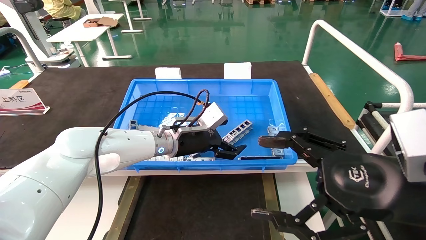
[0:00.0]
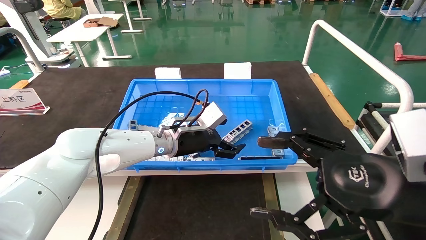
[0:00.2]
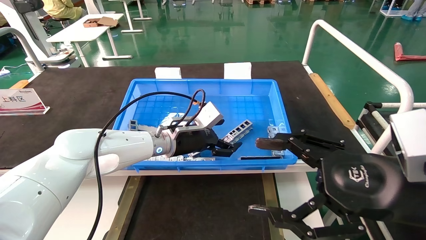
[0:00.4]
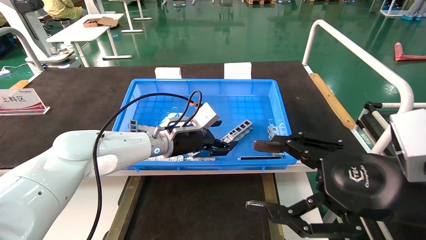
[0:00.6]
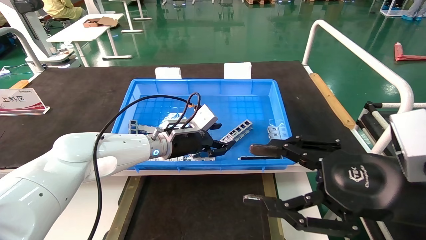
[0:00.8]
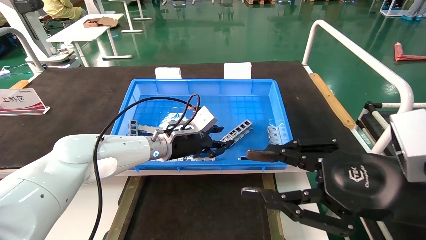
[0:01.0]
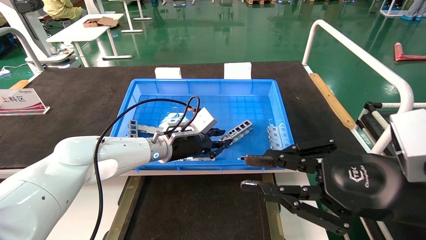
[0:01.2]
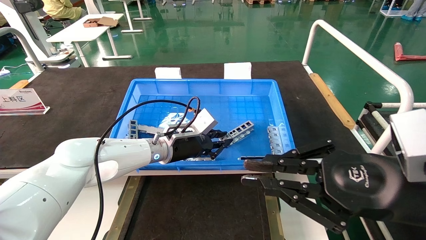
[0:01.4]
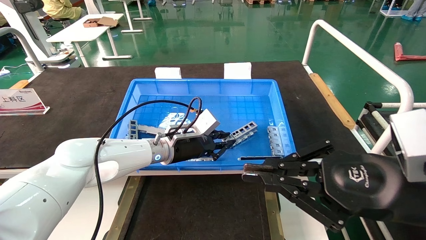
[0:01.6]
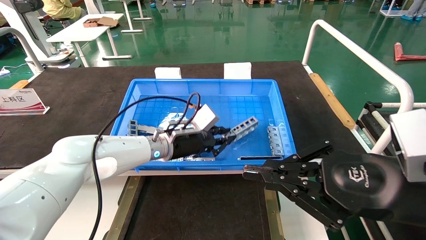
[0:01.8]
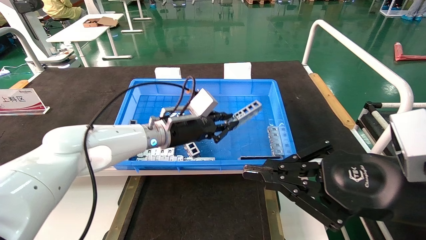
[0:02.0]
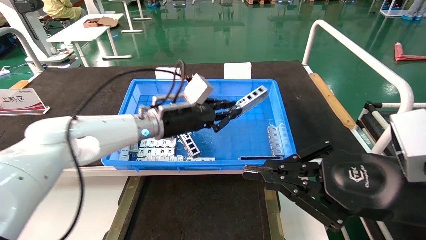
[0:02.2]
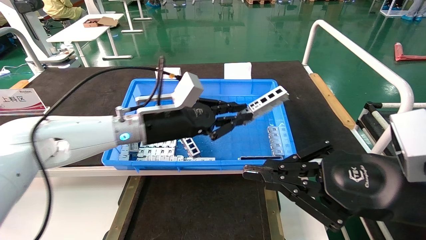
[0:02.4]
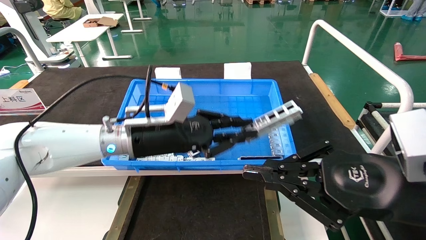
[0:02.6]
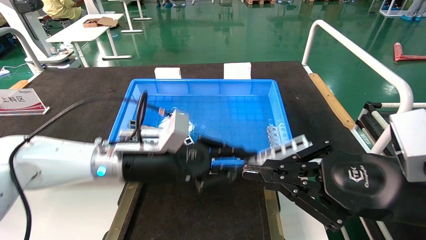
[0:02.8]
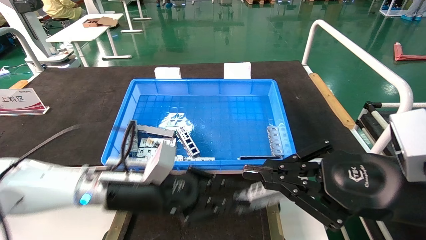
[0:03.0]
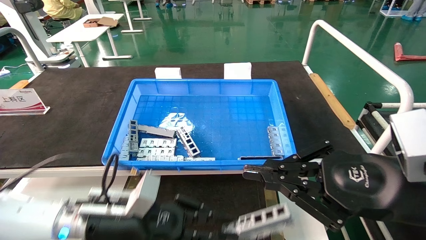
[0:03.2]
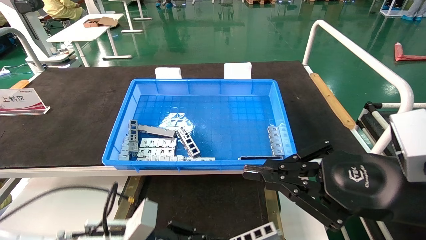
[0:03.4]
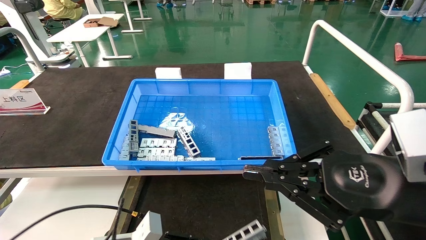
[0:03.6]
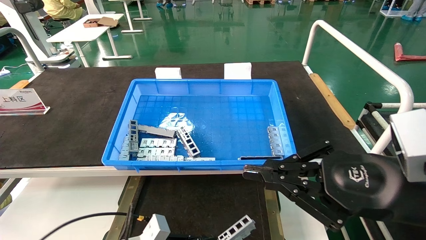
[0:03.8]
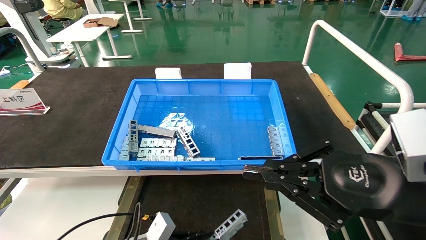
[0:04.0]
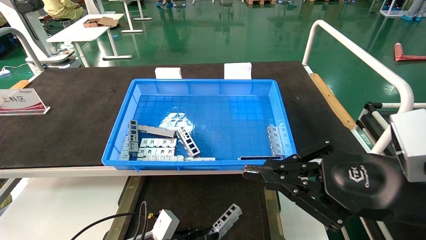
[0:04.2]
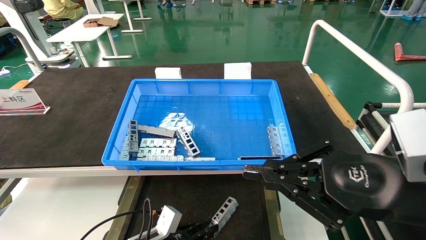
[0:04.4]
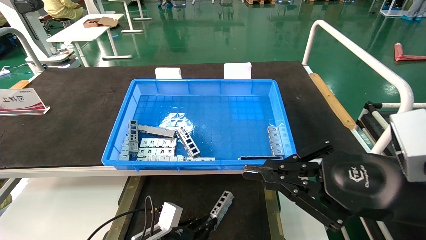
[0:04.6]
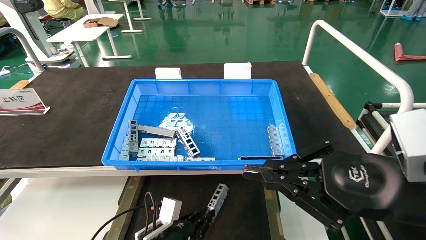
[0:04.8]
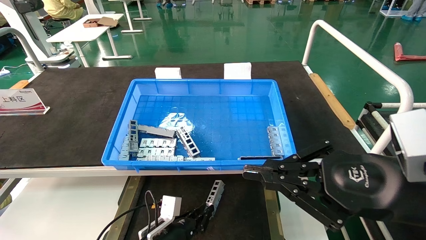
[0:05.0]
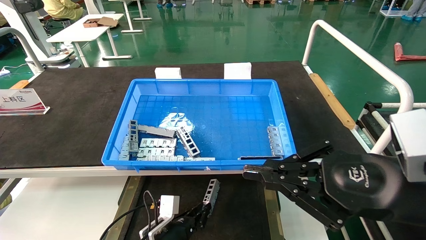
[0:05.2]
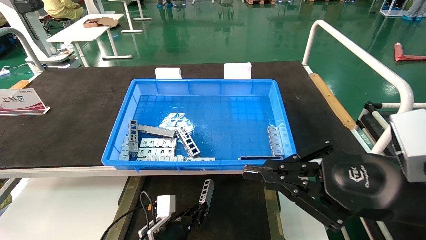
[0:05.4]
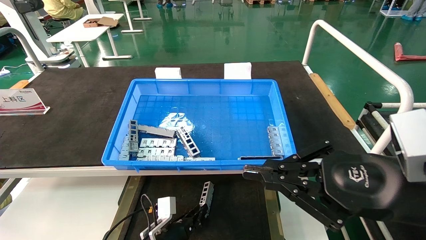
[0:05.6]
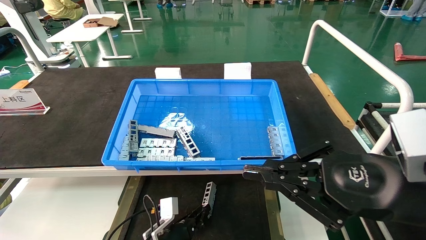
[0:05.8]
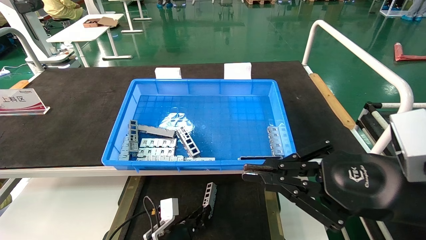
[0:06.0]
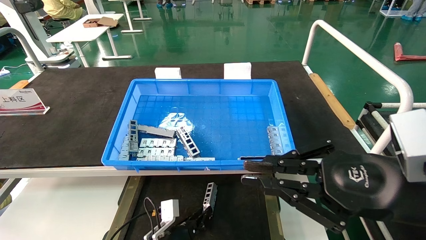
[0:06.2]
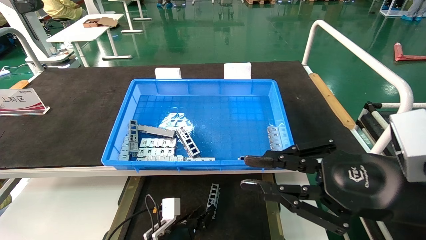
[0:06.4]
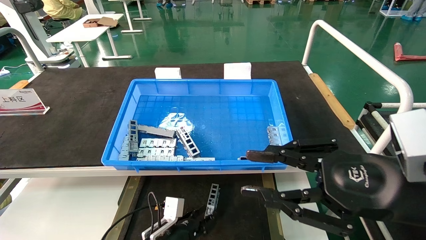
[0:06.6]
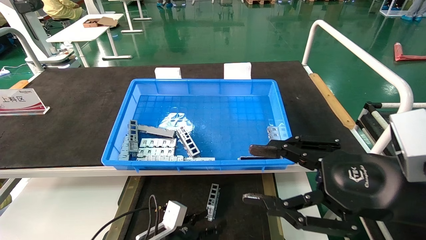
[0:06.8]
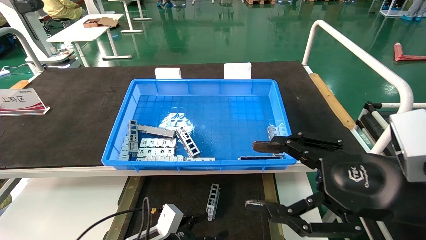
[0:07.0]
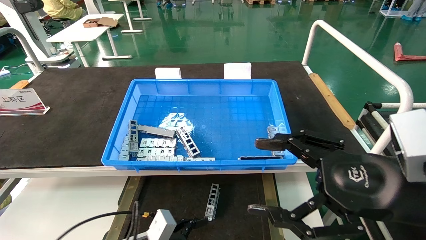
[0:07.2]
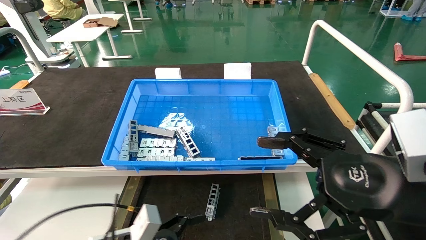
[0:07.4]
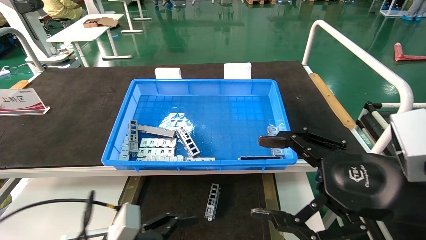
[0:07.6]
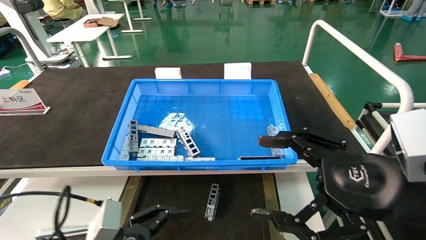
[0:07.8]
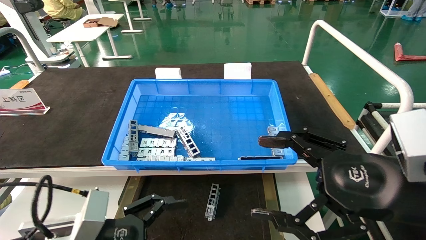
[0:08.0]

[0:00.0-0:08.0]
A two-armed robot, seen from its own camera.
Task of the whole recording: Grasp the part with one hand and place it on the black container.
Step, 0:00.0 to 0:02.0: Pick up the front USB bracket from the feeding area.
Step, 0:02.2 to 0:06.4: Place the front USB bracket into the box.
0:00.0 to 0:01.6: The right gripper closes up. Meanwhile the left gripper closes its fingers.
0:01.6 to 0:03.2: The left gripper travels backward and to the left by some 20 cm.
0:03.2 to 0:04.8: The left gripper goes approximately 15 cm downward.
0:04.8 to 0:06.4: The grippers move only a little.
0:06.4 to 0:08.0: The left gripper moves upward, backward and to the left, some 25 cm, and opens, while the right gripper opens its fingers.

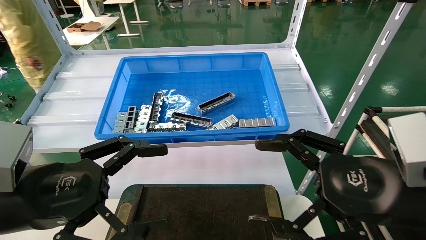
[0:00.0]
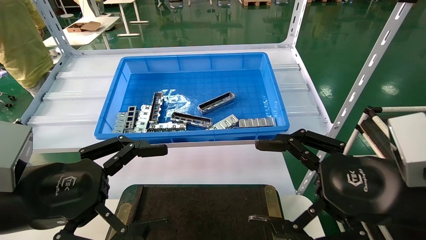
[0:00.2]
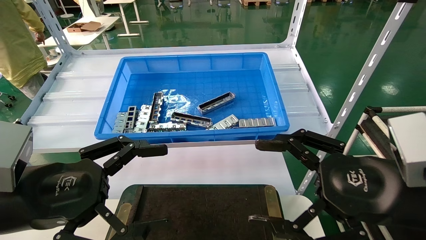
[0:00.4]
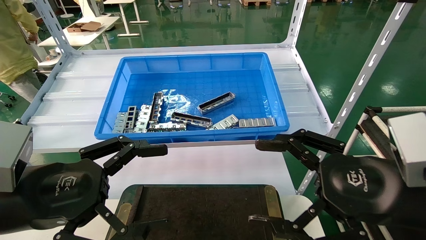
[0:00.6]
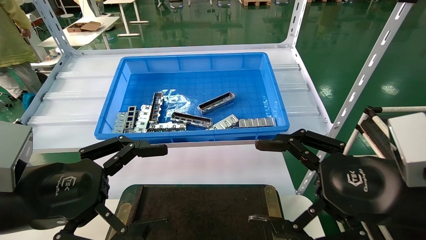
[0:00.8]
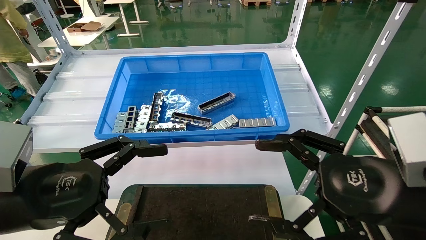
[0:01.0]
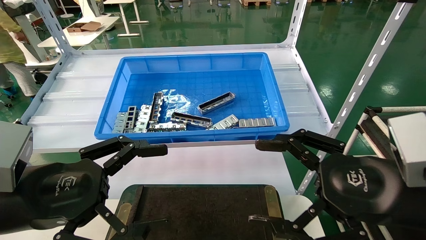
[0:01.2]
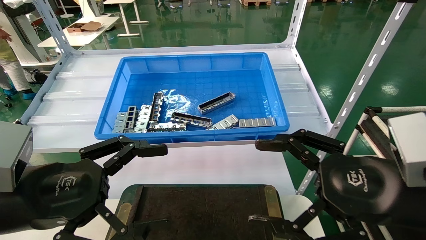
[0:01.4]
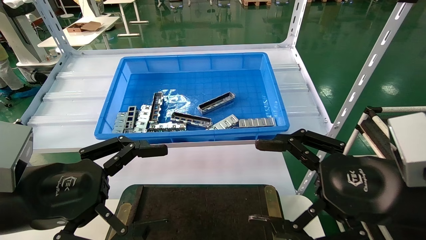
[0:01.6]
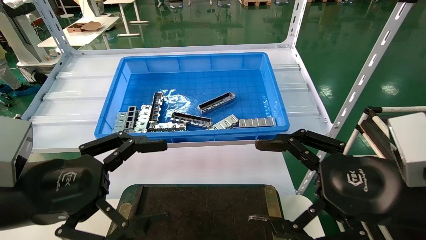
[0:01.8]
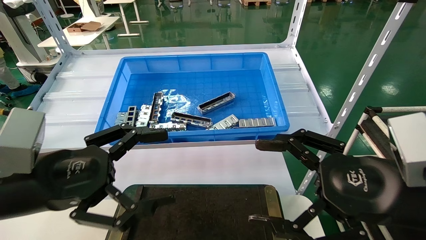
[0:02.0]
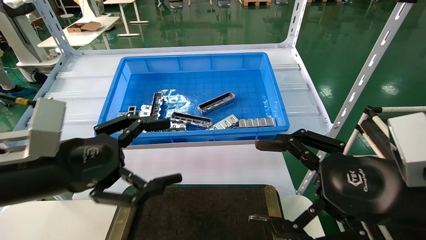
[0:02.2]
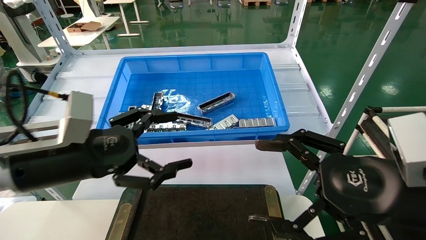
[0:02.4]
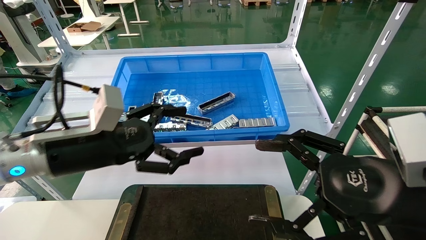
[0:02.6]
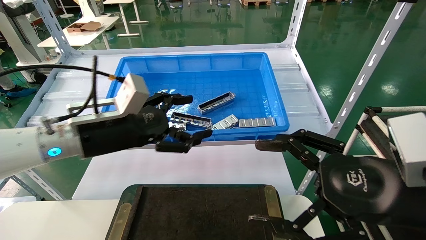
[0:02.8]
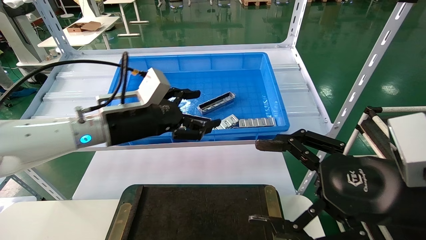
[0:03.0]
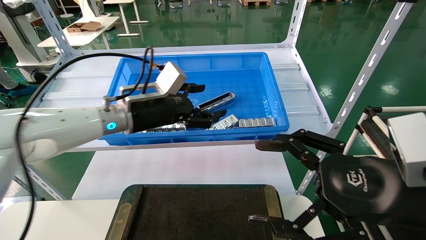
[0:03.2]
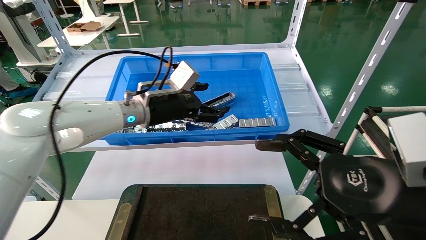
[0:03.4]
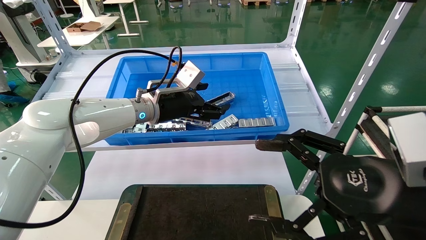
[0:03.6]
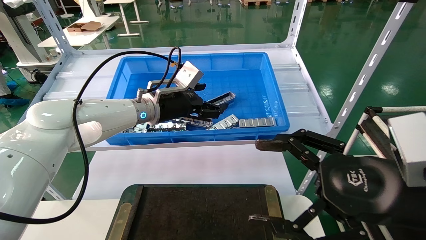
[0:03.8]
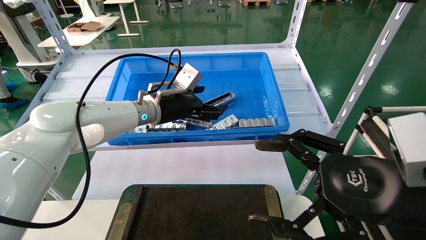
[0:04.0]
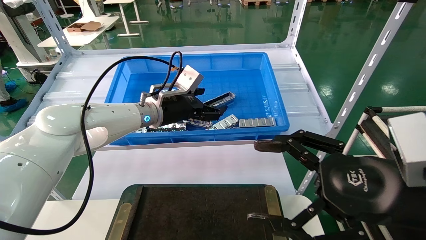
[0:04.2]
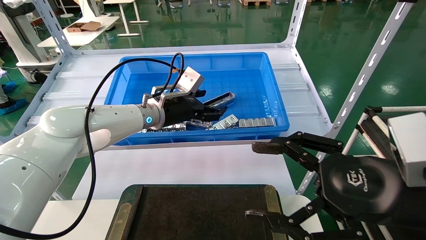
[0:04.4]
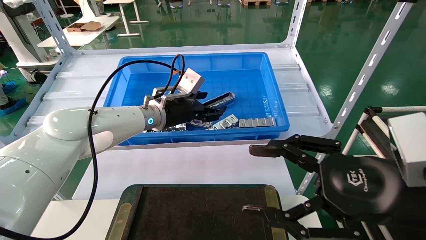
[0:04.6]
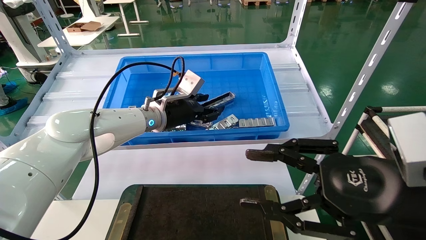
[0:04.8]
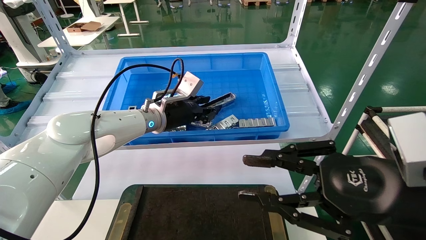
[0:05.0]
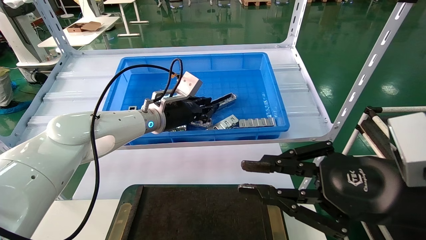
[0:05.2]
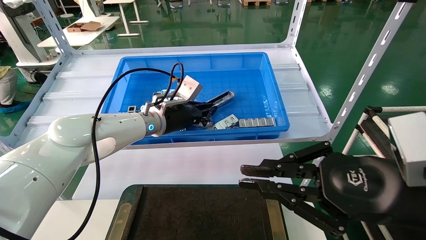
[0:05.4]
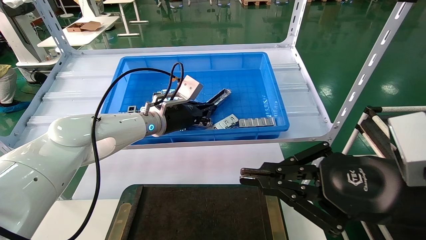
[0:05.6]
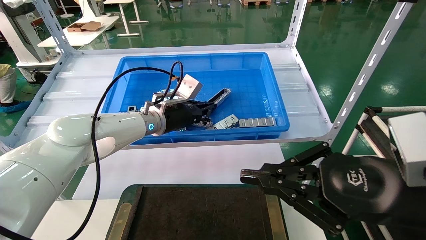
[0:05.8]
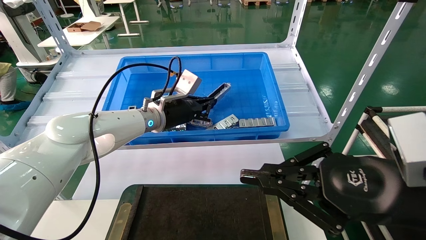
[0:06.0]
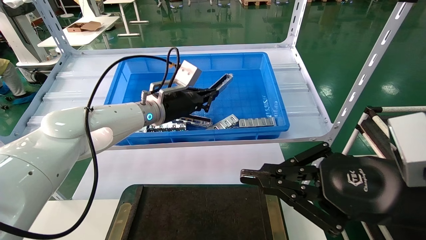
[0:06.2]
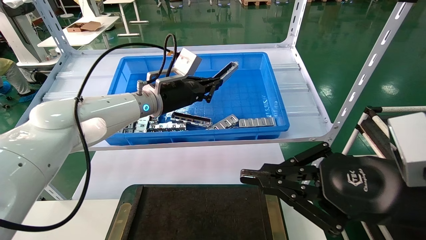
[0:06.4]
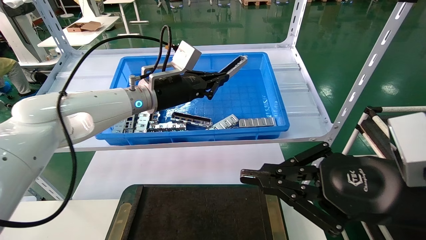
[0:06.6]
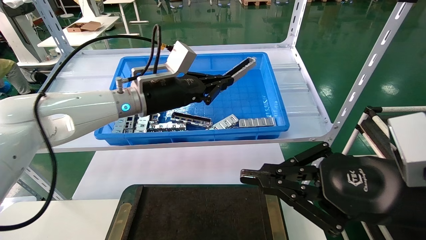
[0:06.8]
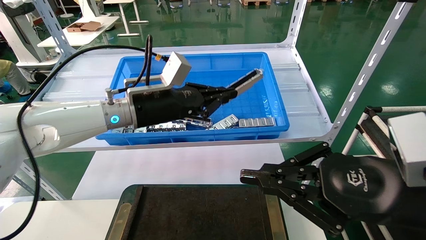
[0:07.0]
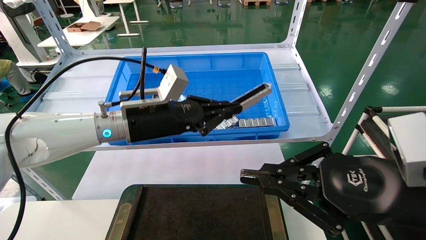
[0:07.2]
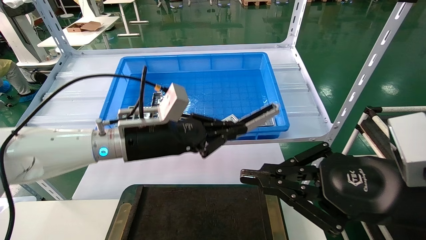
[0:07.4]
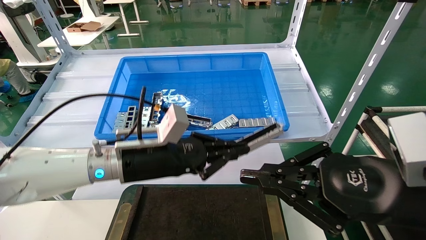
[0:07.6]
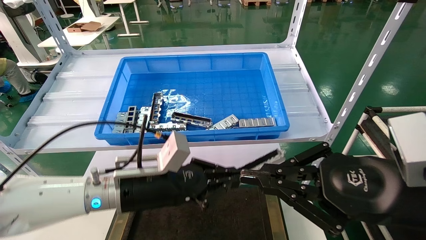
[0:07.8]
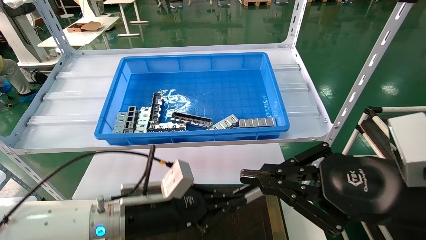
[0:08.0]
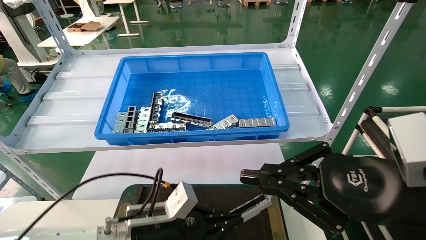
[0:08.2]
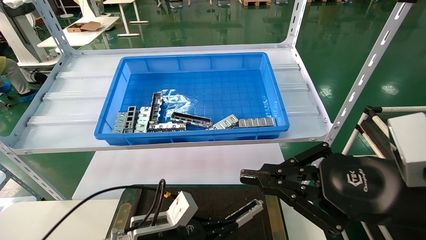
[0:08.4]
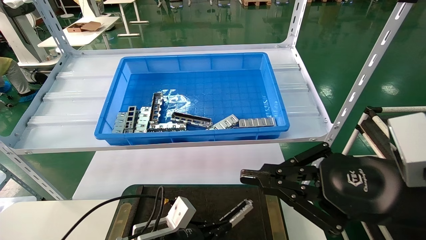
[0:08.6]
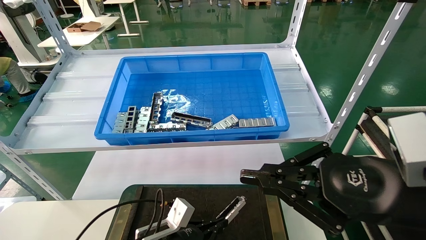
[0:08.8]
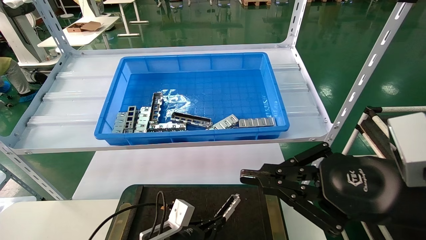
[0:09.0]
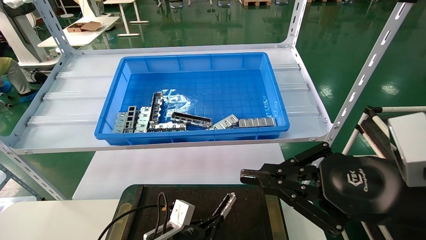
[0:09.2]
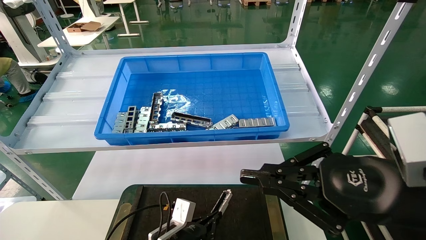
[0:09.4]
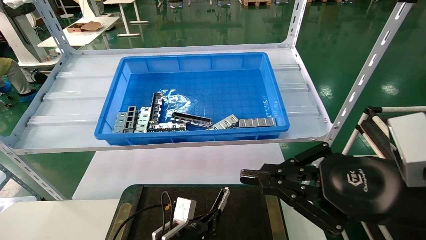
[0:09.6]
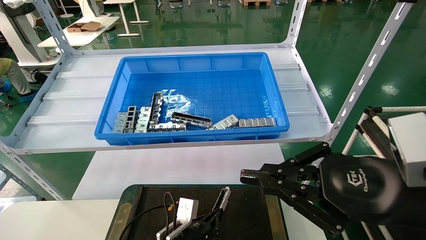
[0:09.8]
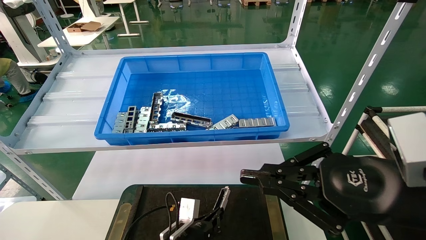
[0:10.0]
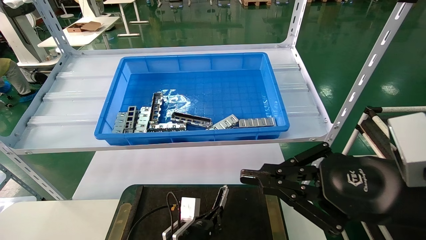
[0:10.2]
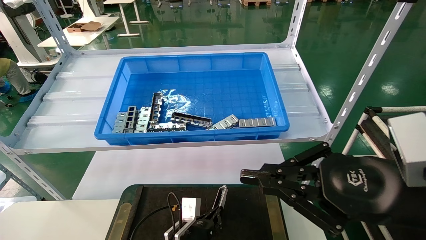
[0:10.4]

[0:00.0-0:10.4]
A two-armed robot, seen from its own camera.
Task of the whole recording: Grasp the part with one hand and place it on the black container.
Step, 0:02.0 to 0:05.6: Pick up the front USB bracket from the feeding area.
0:00.0 to 0:01.4: Neither gripper changes place.
0:01.4 to 0:03.0: The left gripper moves forward and to the right, some 20 cm.
0:03.0 to 0:04.4: The left gripper heads forward and to the right, covering roughly 10 cm.
0:04.4 to 0:06.0: The right gripper closes its fingers. The left gripper closes its fingers.
0:06.0 to 0:07.4: The left gripper is displaced backward by approximately 10 cm.
0:07.4 to 0:09.0: The left gripper is displaced downward by roughly 25 cm.
0:09.0 to 0:10.4: The left gripper is displaced to the right by approximately 5 cm.
